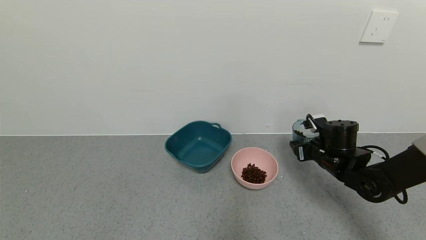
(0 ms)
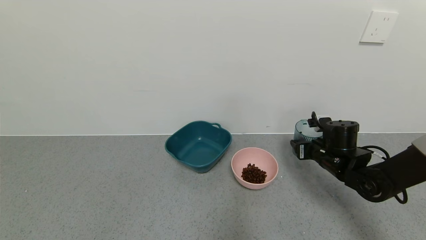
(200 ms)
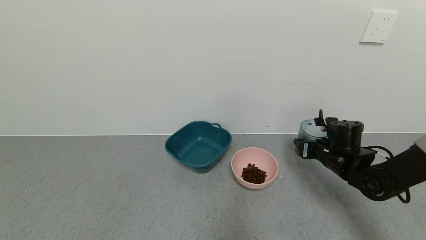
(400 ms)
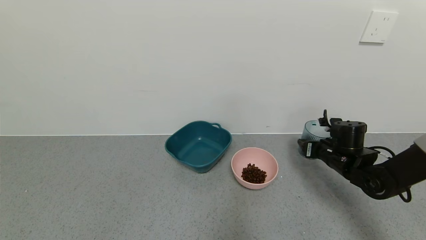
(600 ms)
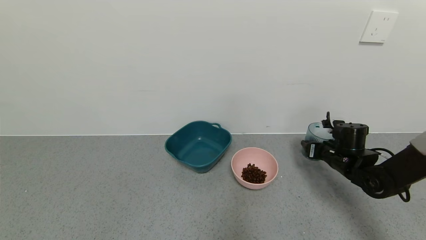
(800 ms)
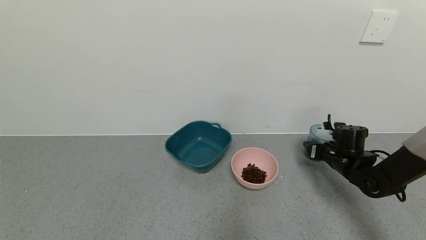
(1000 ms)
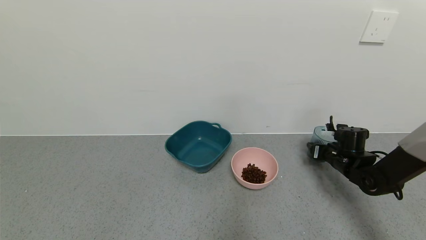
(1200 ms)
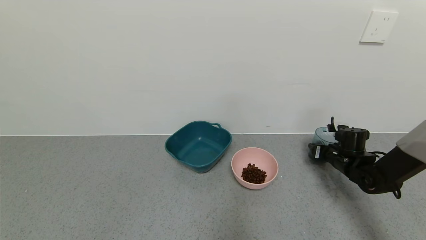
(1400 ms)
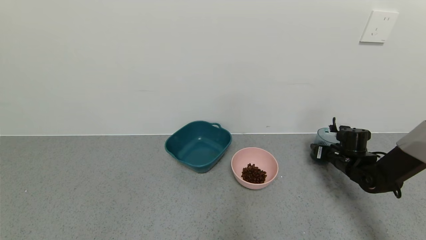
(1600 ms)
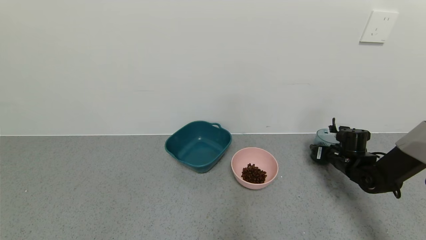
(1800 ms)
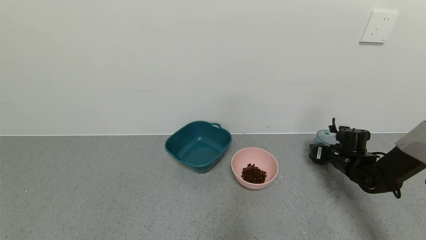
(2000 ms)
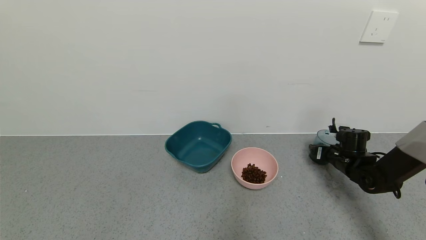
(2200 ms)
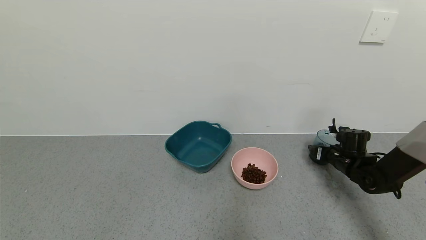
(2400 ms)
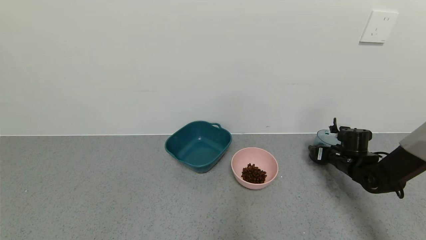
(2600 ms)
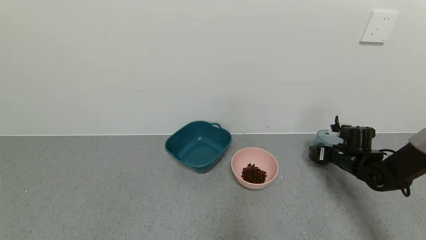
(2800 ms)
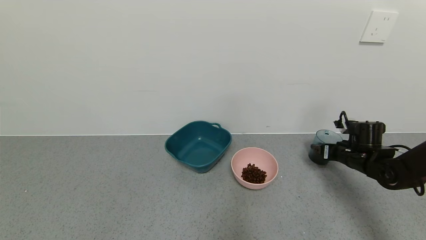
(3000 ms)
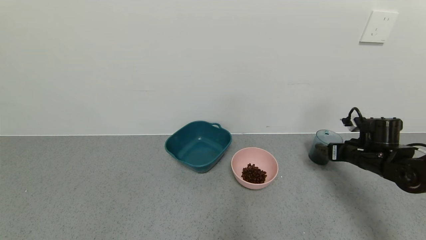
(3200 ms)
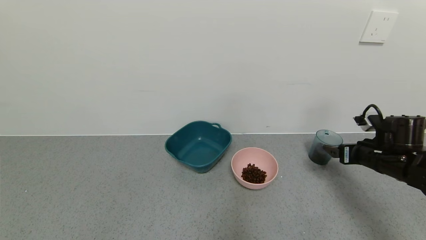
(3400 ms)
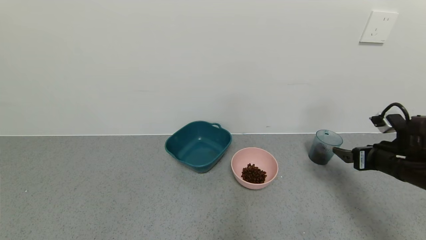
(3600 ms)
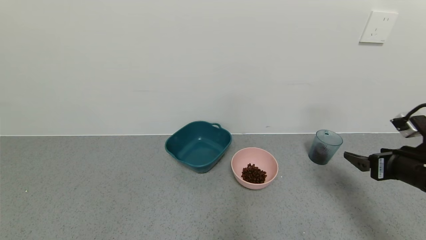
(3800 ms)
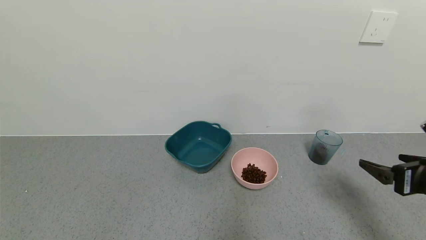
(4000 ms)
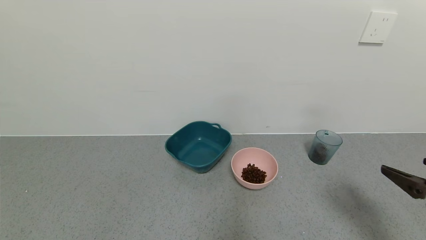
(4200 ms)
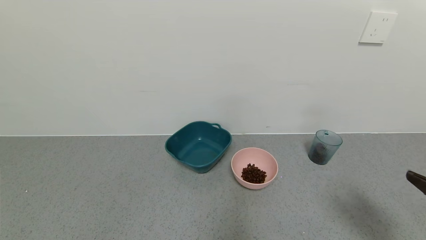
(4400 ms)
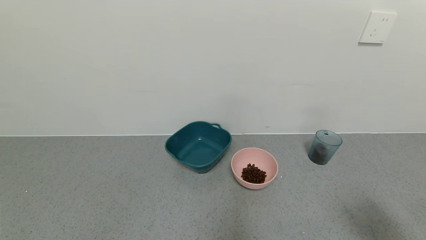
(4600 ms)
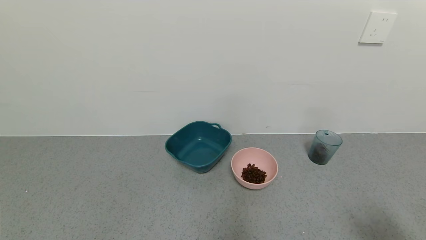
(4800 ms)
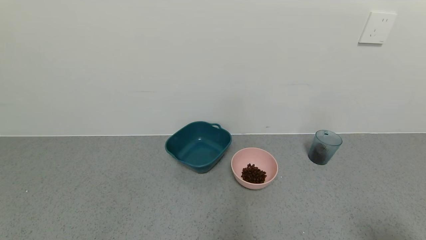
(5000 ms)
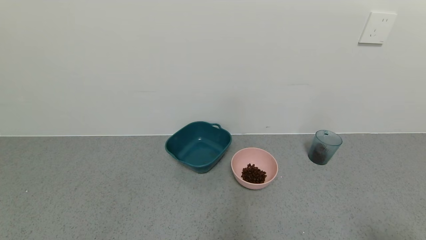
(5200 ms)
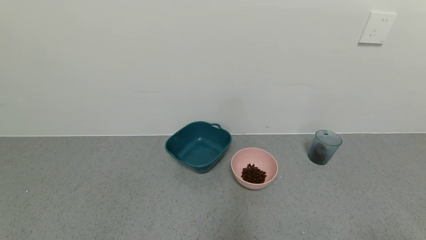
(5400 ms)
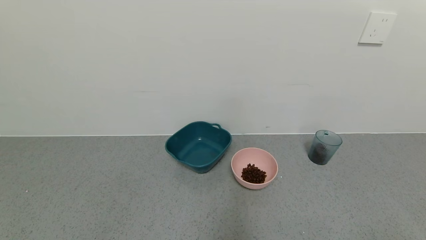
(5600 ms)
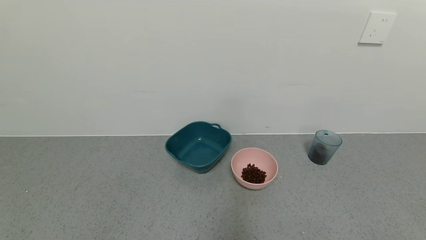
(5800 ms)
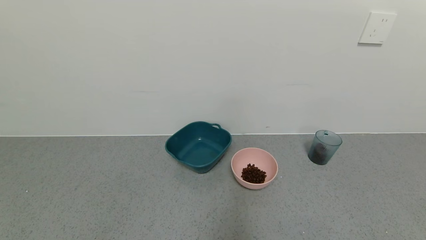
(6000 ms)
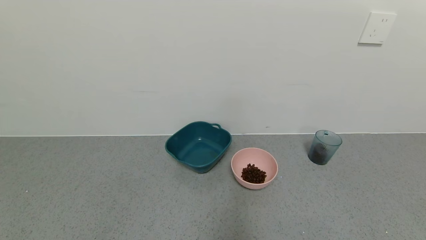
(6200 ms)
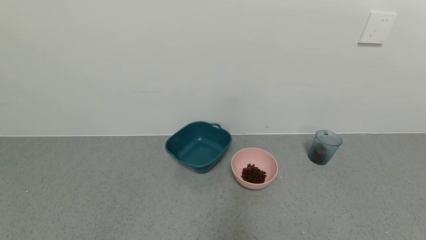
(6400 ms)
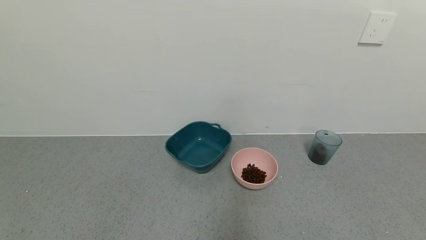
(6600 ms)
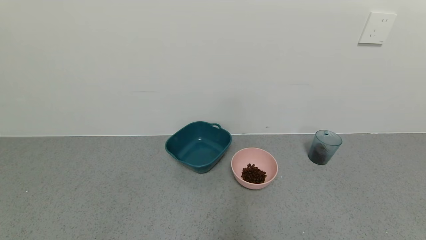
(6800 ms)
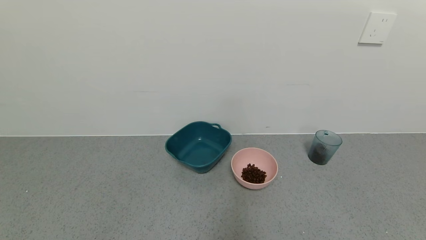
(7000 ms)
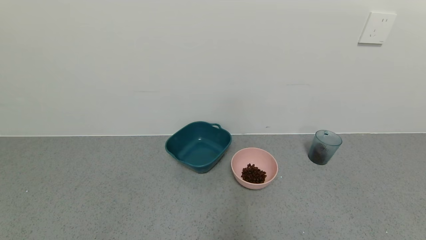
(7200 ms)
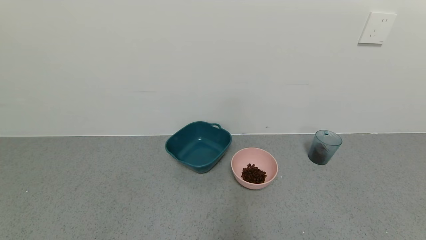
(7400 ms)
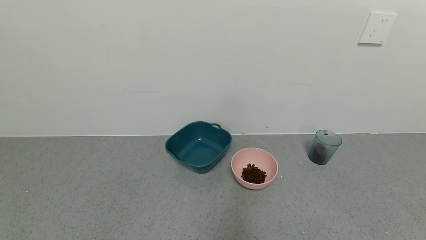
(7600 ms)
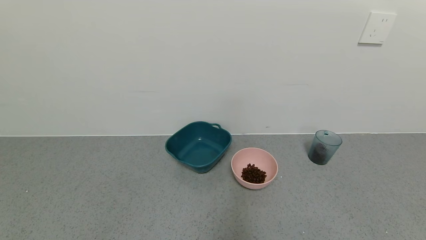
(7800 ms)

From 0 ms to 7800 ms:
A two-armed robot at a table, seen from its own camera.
Task of the whole recording: use a gripper to pick up the cup and pour the solid into a bowl or tray.
Step, from 0 ms to 3400 ms: Place the glass cup with the right gripper.
From 0 ms to 1600 ms: The right gripper travels to the right and downward by roughly 10 cm.
From 1600 ms to 3200 ms: The right gripper moves upward and backward, roughly 10 cm, and opens up.
From 3200 ms to 4600 ms: The right gripper goes approximately 30 cm backward.
From 4600 ms to 6200 ms: The right gripper heads backward and downward, covering approximately 10 cm.
